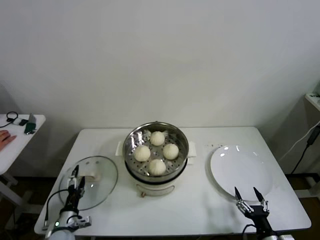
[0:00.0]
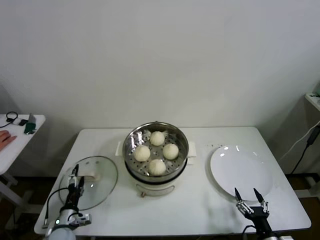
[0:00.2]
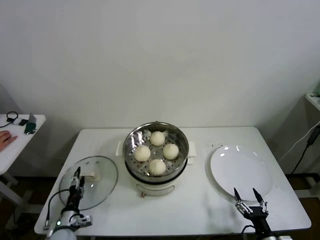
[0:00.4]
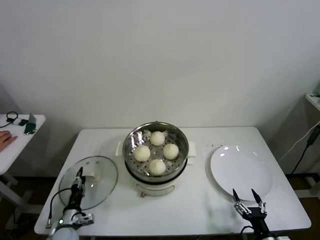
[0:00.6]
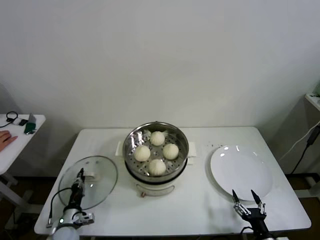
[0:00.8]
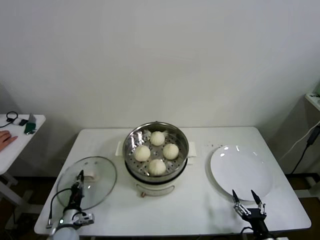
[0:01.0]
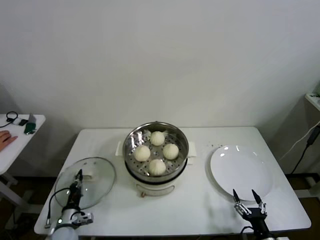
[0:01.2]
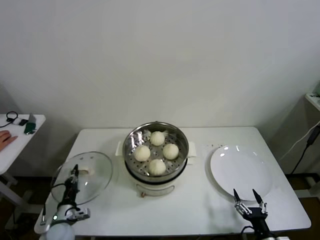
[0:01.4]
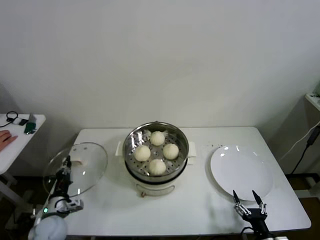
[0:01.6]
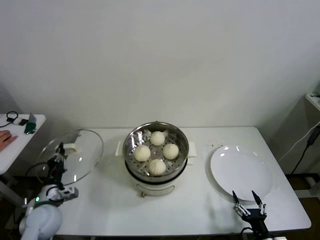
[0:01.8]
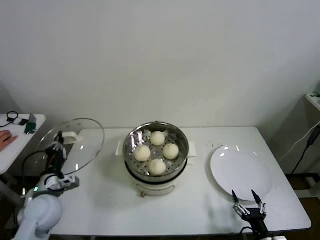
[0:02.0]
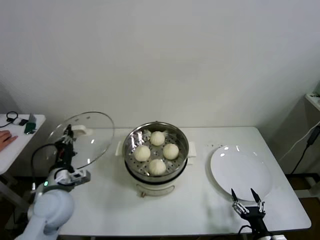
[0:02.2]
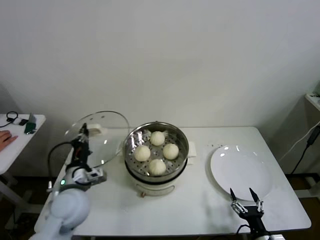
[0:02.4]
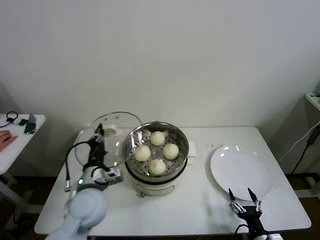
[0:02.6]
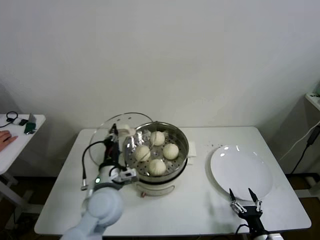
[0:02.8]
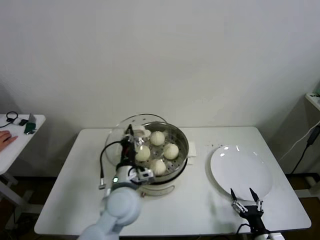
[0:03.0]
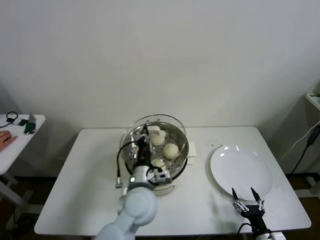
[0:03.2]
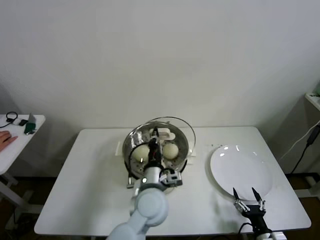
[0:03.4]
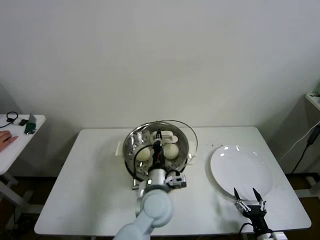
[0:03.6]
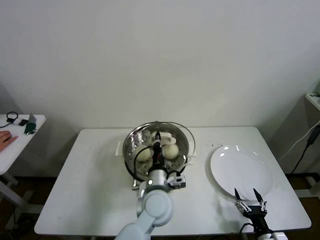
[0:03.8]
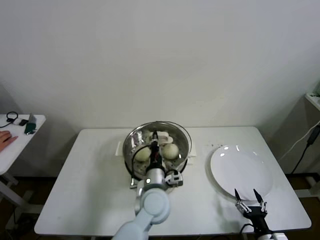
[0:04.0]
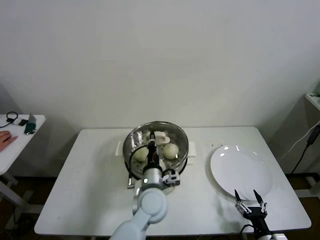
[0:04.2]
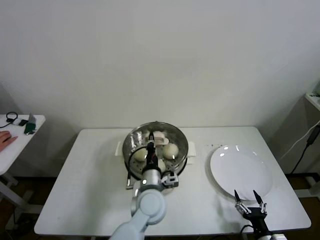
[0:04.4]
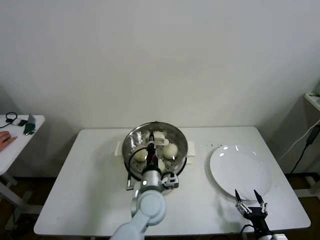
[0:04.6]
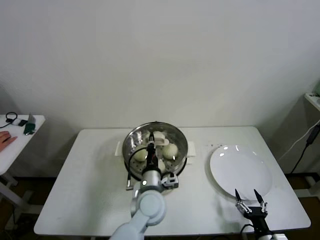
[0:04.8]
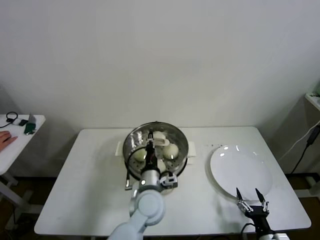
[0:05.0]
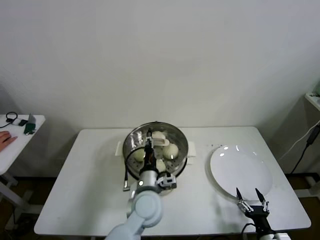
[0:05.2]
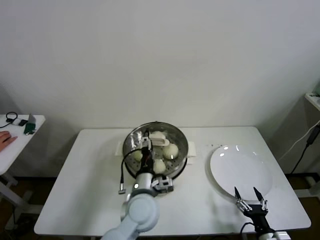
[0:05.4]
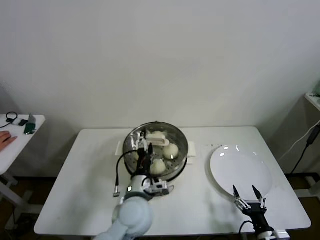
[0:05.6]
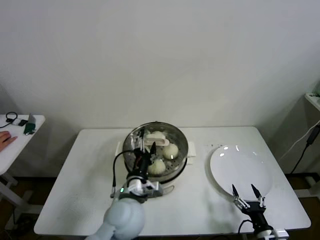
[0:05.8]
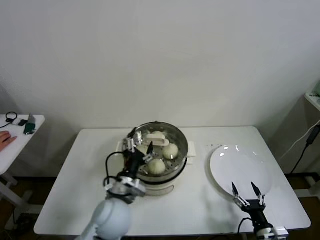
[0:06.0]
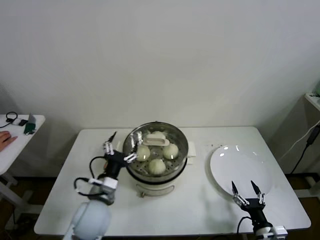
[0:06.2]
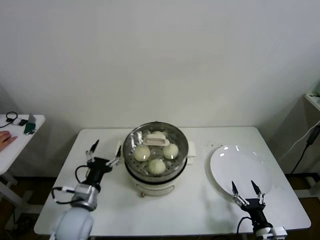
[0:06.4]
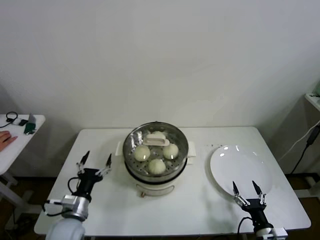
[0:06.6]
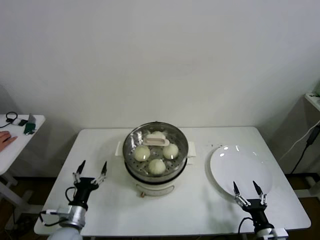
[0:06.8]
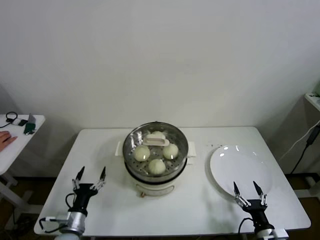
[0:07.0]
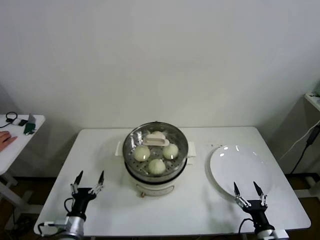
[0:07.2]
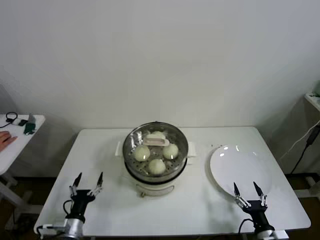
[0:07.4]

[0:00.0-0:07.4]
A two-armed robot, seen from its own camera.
Step, 0:01.0 to 0:05.0: Place the pot lid on the steamer with left gripper.
0:00.0 to 0:01.4: The left gripper closes.
0:01.4 to 0:03.0: The left gripper shifts roughly 30 cm to the right and upward.
0:03.0 to 0:04.4: The left gripper goes roughly 10 cm to the right.
0:04.4 to 0:06.0: The left gripper goes approximately 10 cm to the left, and opens.
0:06.0 to 0:07.4: The left gripper moves to the left and downward, roughly 25 cm.
